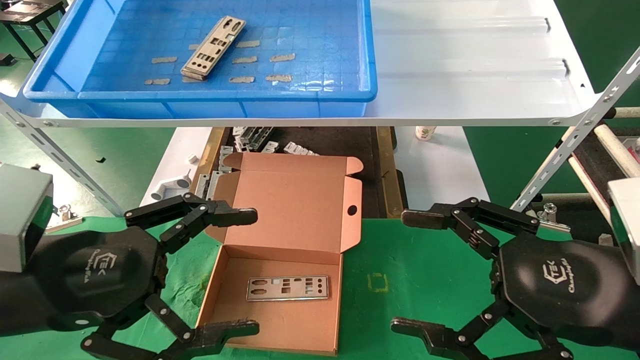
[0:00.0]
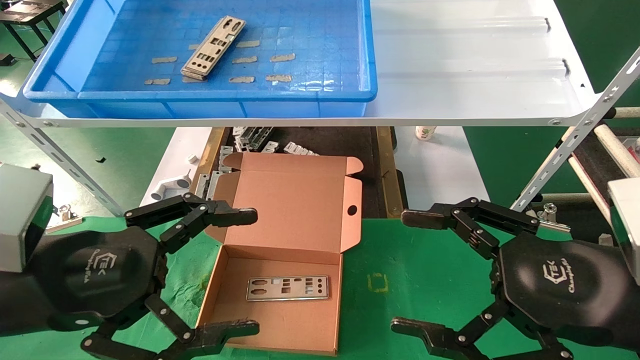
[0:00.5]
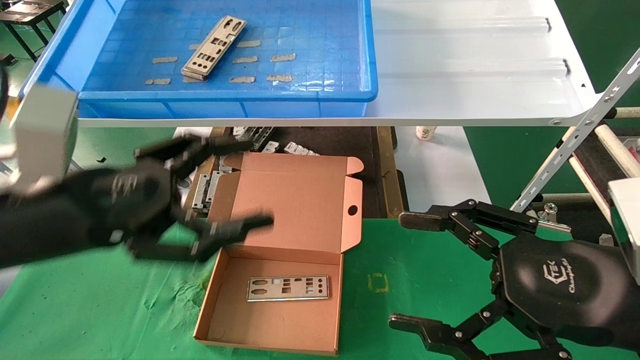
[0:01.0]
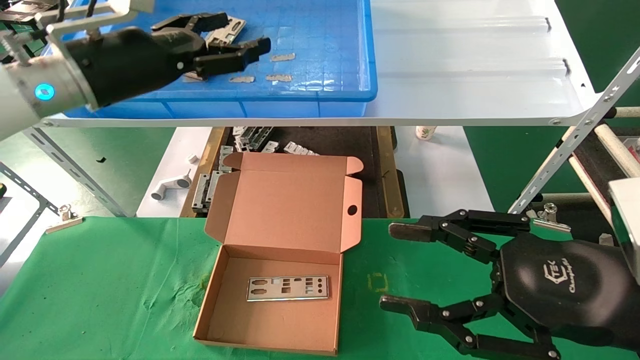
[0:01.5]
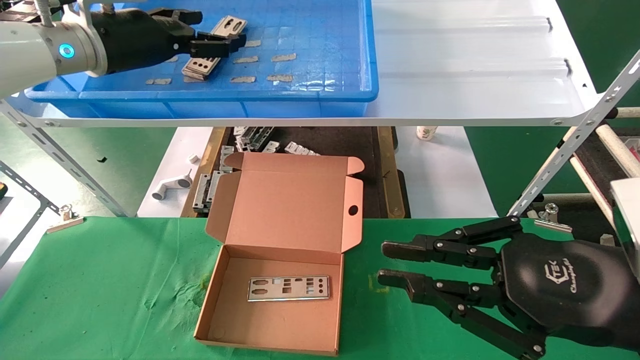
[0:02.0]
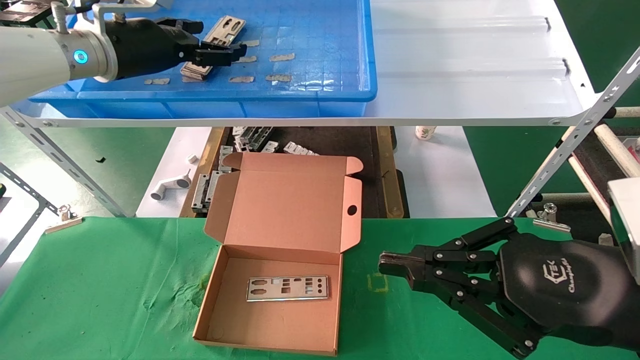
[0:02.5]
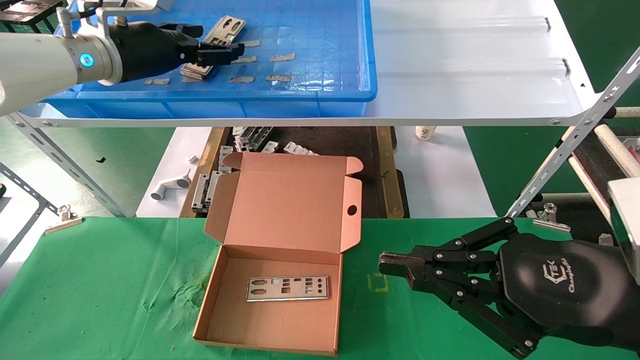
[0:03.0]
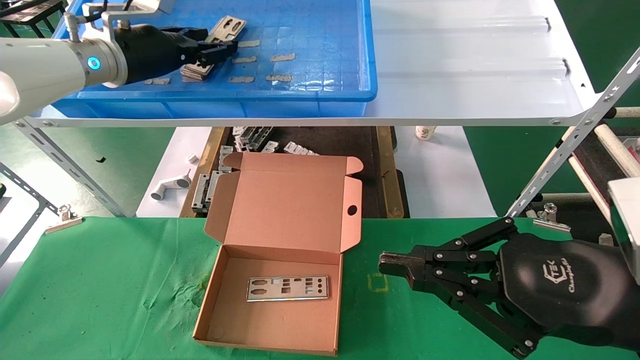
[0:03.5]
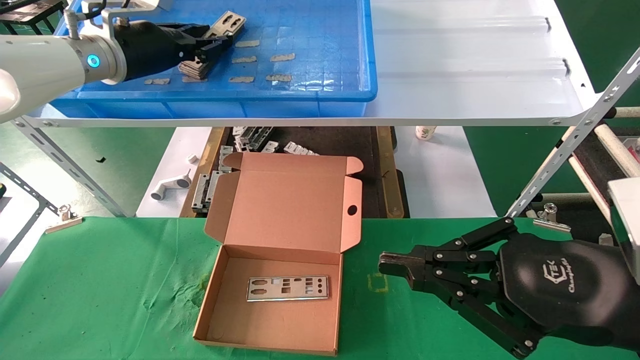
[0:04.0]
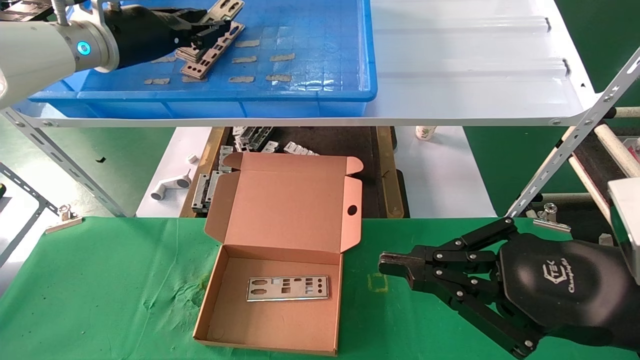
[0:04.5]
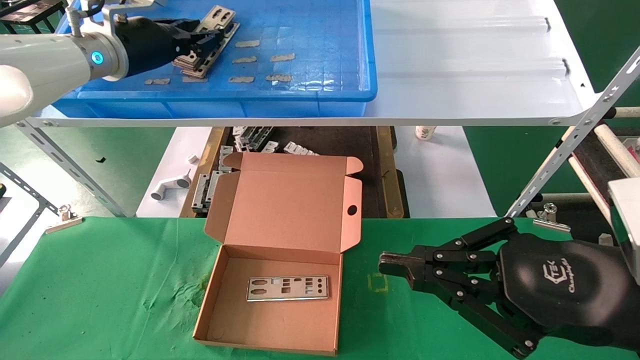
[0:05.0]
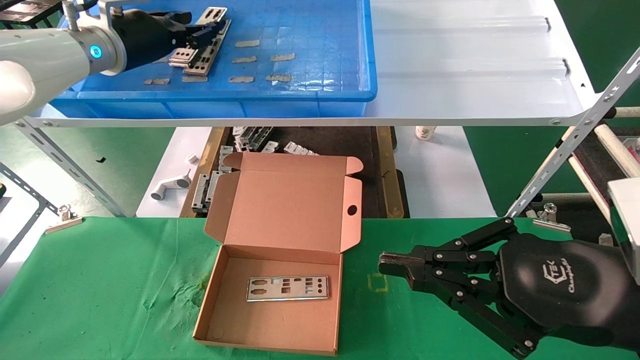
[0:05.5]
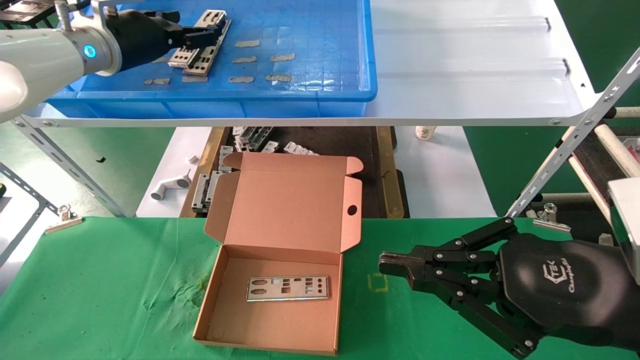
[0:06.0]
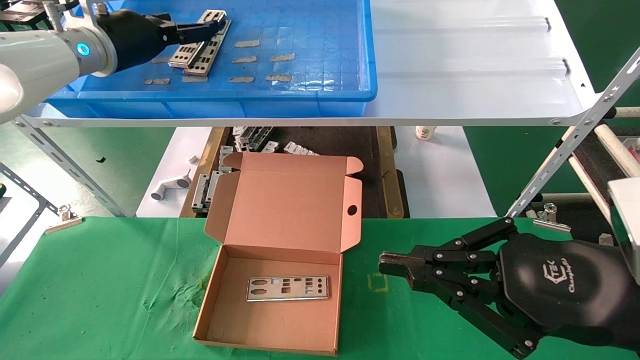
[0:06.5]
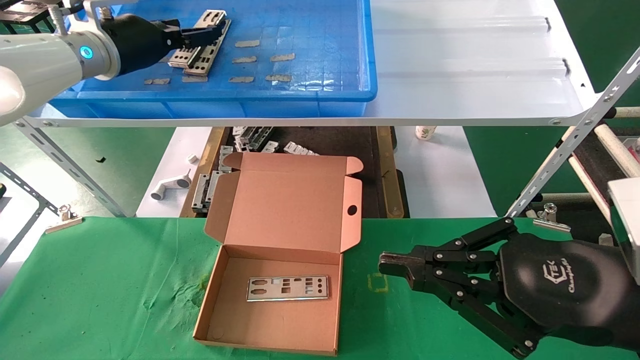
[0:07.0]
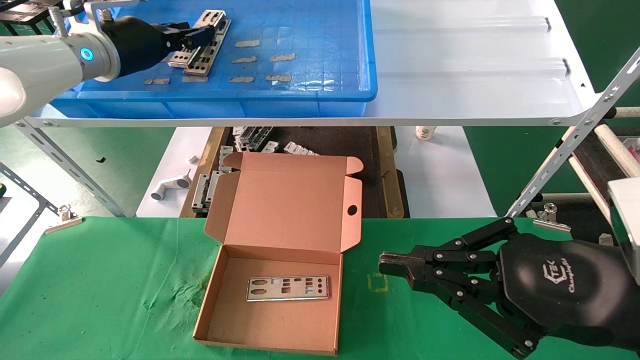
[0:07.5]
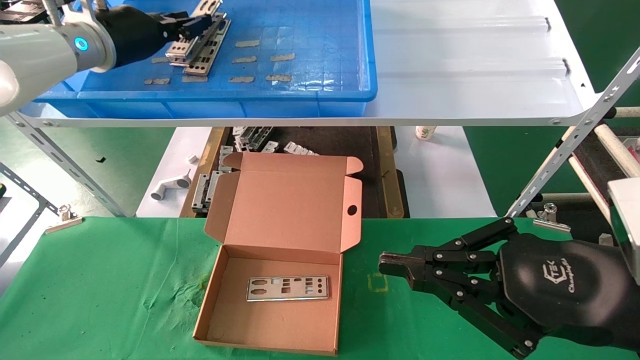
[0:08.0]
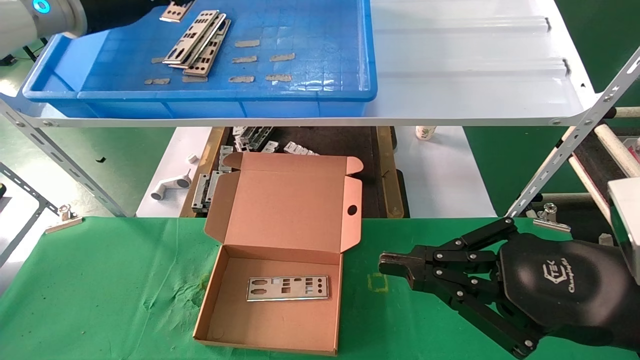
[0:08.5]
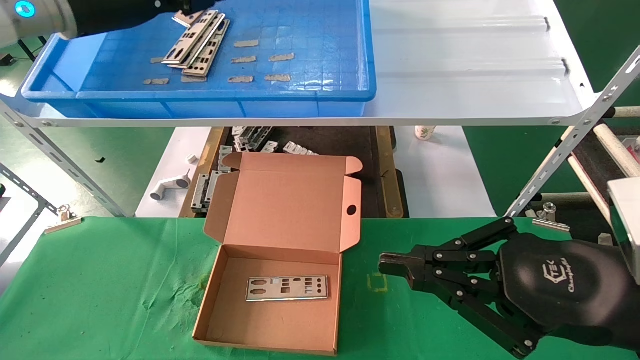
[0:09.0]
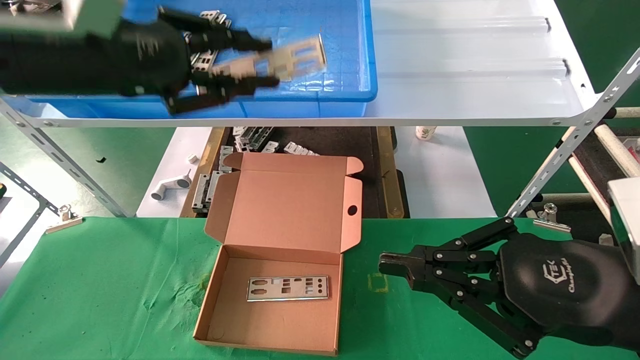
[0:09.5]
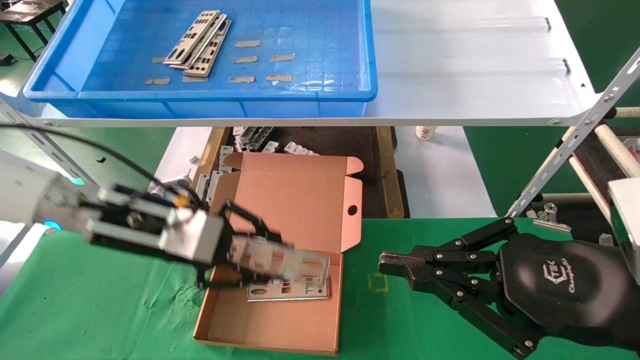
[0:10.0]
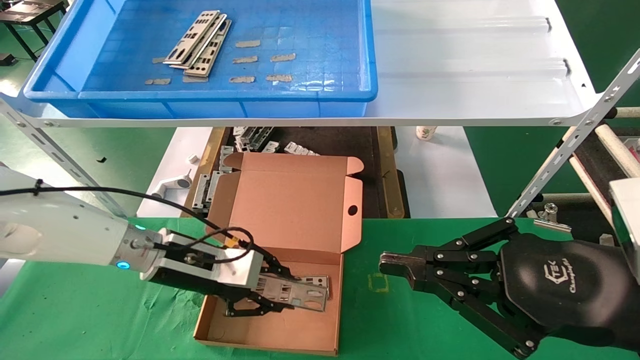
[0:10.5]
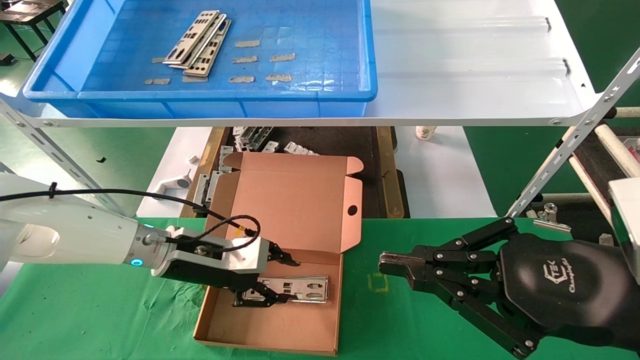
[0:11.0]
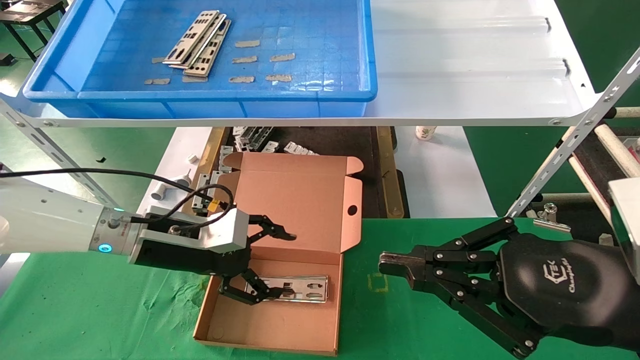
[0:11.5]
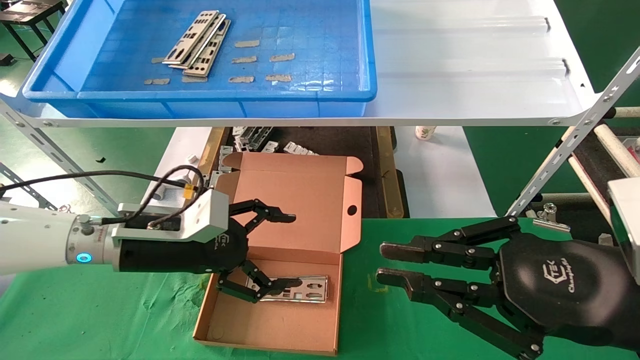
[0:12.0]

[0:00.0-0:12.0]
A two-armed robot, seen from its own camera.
Task of the whole recording: pick up the parts on the tray and put them in the cardboard box.
Step, 0:01.0 to 0:08.0: Pick up the IO bracket from the container box.
Step, 0:08.5 to 0:11.0: Place the IO bracket into the ingredient slot.
0:00.0 to 0:02.0: The right gripper closes, while the left gripper heads forward and upward, covering about 30 cm.
0:02.0 to 0:04.0: The left gripper closes its fingers.
0:04.0 to 0:06.0: The left gripper opens its fingers.
0:06.0 to 0:08.0: The left gripper closes up.
0:08.0 to 0:10.0: The left gripper is displaced downward and backward by some 20 cm.
0:10.0 to 0:12.0: The left gripper shifts roughly 5 cm downward, and opens its fingers.

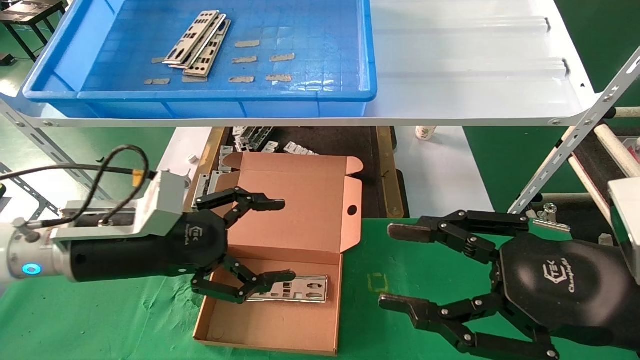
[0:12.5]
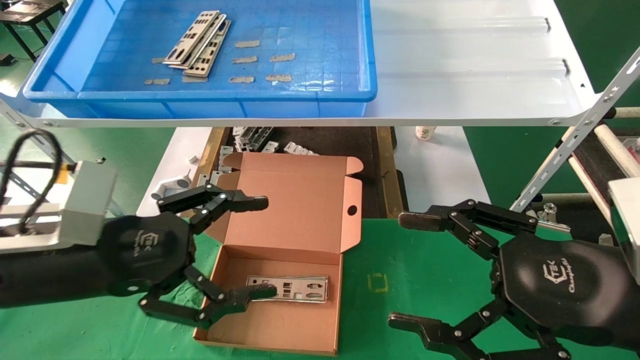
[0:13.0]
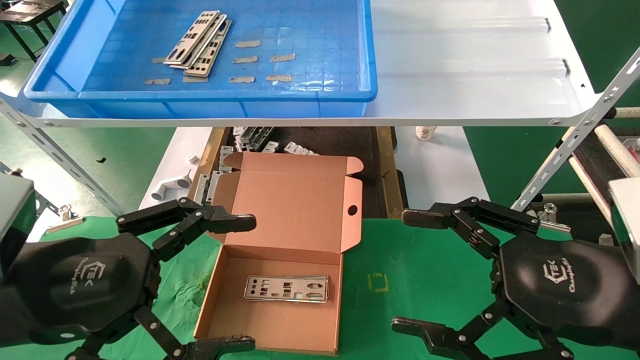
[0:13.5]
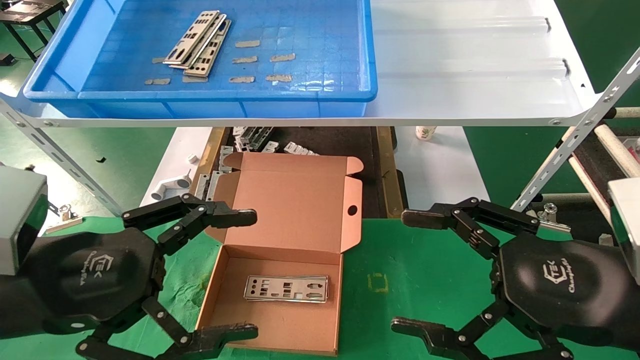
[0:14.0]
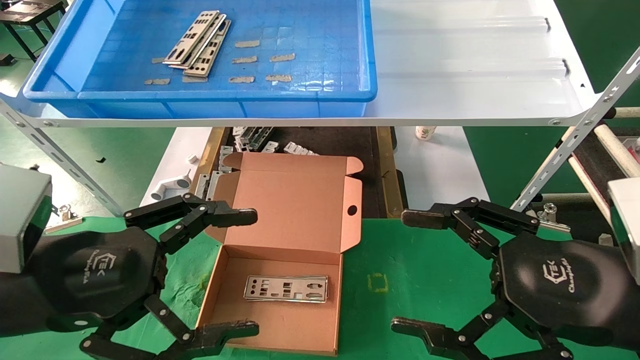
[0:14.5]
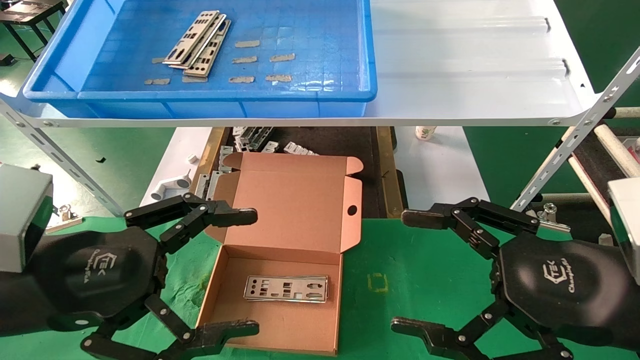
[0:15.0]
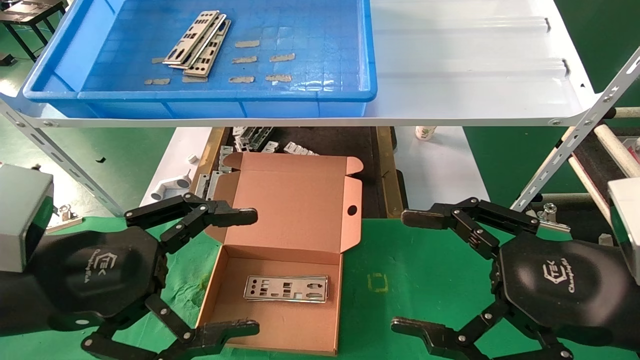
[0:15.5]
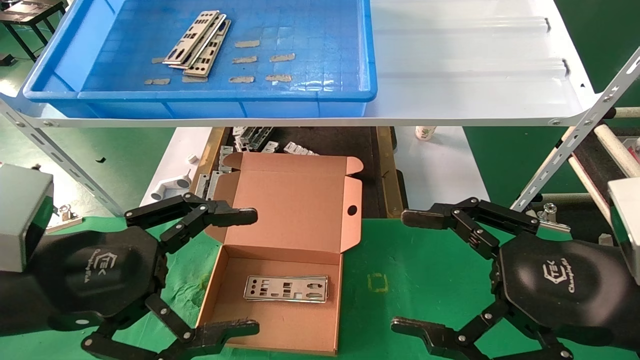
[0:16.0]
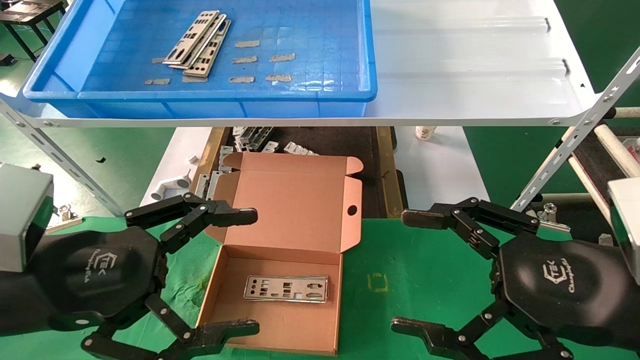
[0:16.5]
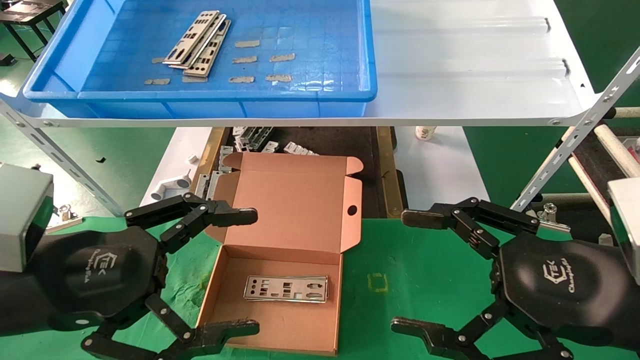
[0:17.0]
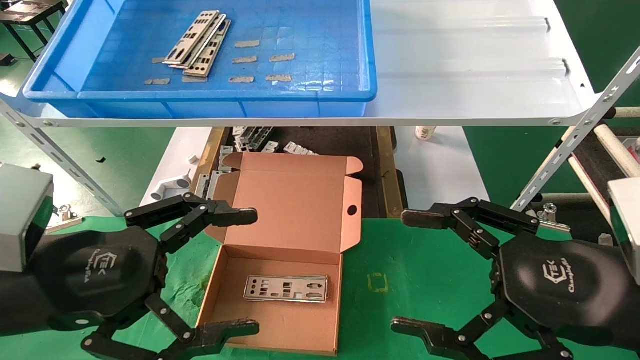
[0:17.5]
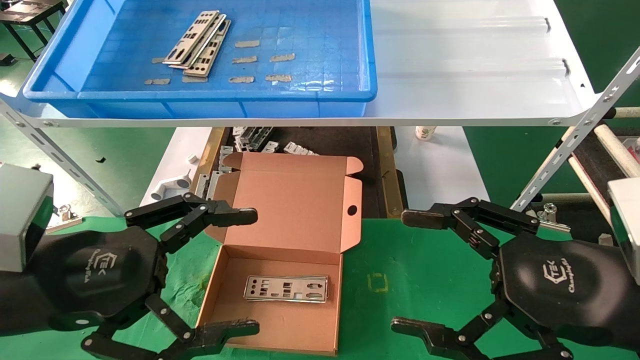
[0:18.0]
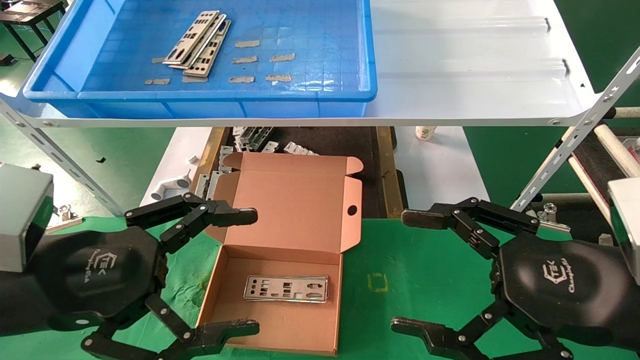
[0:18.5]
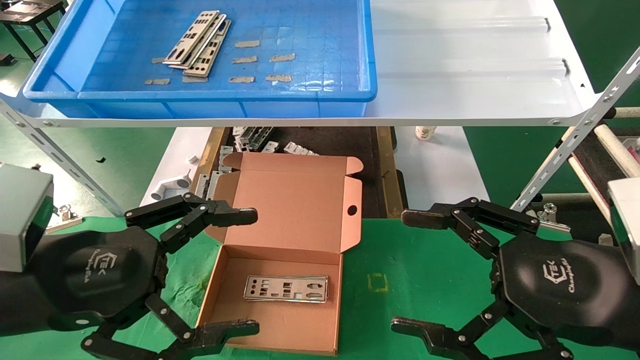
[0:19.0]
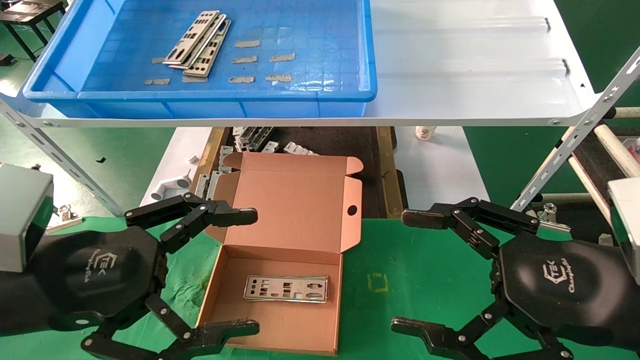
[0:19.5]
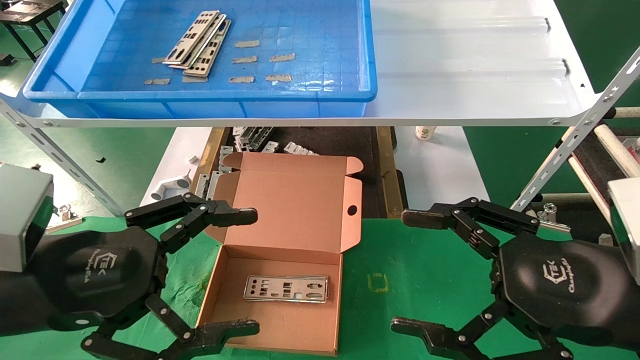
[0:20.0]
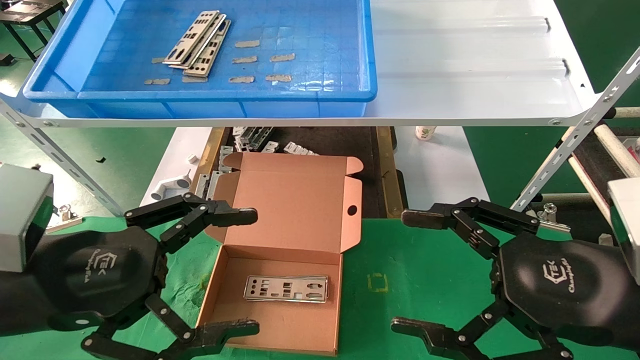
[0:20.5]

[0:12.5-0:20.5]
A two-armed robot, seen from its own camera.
Task of the whole recording: pick up the parts on the tray and put them in the cardboard box.
0:12.5 to 0:14.5: The right gripper opens its fingers; the left gripper goes approximately 10 cm backward.
0:14.5 to 0:20.5: Both grippers stay put.
